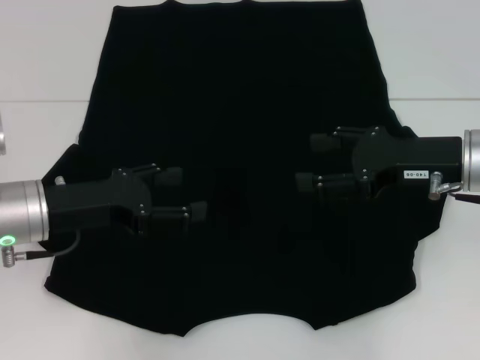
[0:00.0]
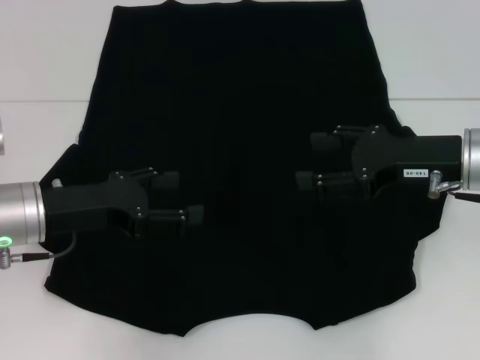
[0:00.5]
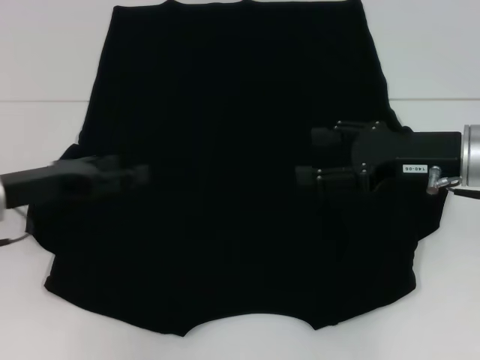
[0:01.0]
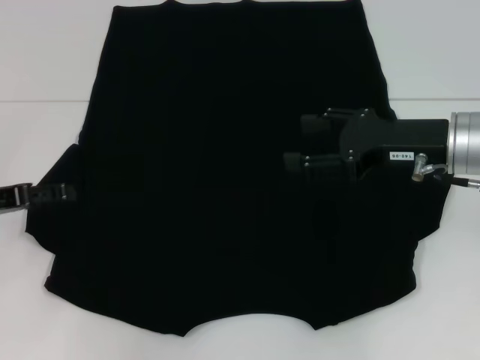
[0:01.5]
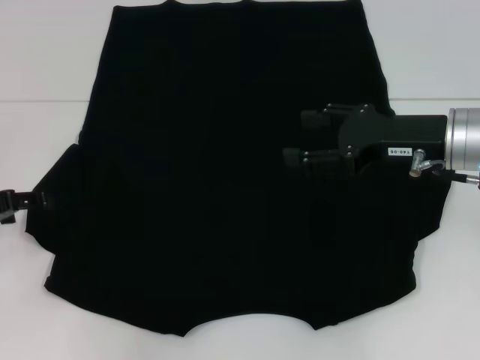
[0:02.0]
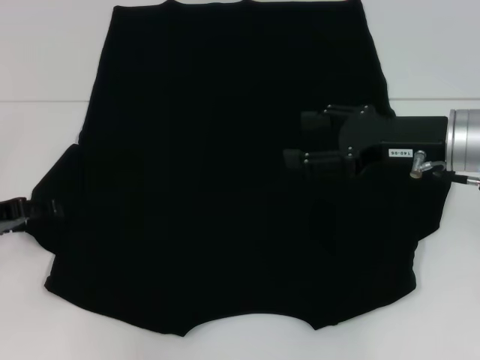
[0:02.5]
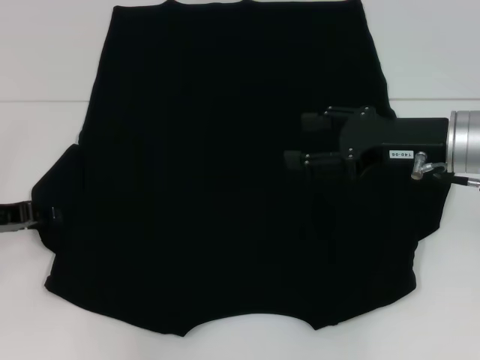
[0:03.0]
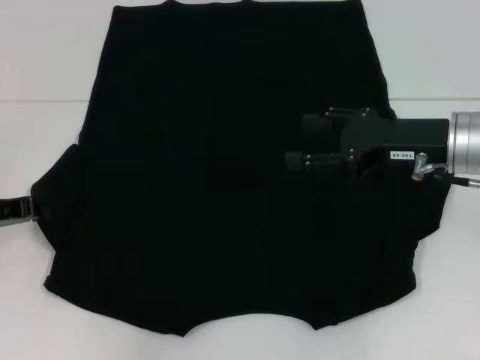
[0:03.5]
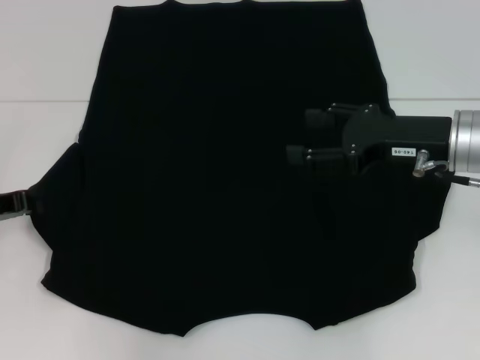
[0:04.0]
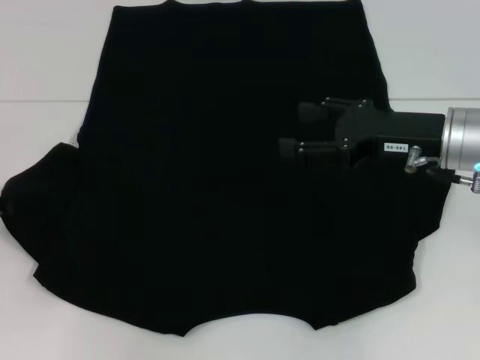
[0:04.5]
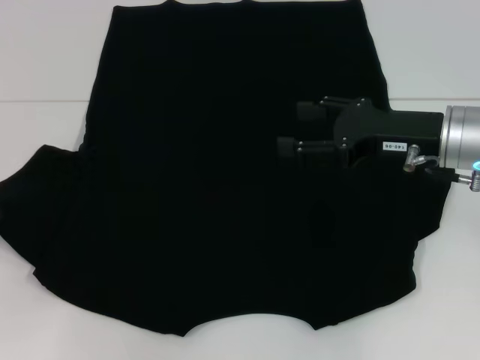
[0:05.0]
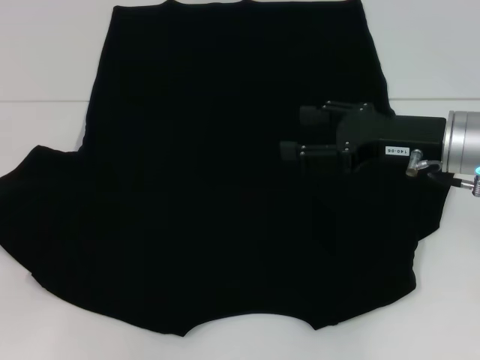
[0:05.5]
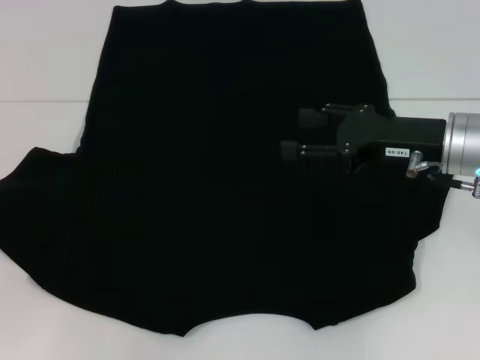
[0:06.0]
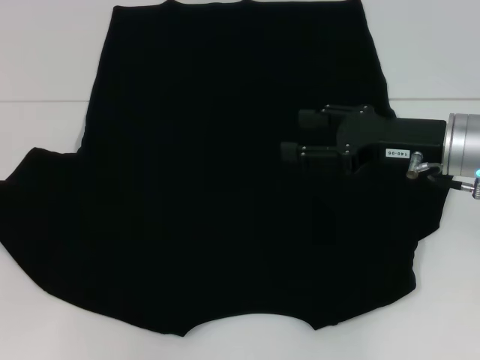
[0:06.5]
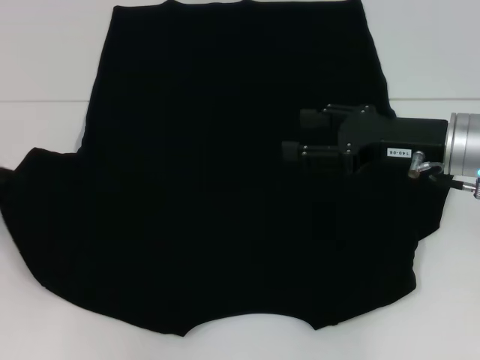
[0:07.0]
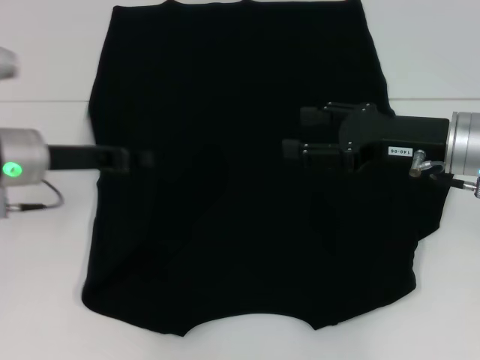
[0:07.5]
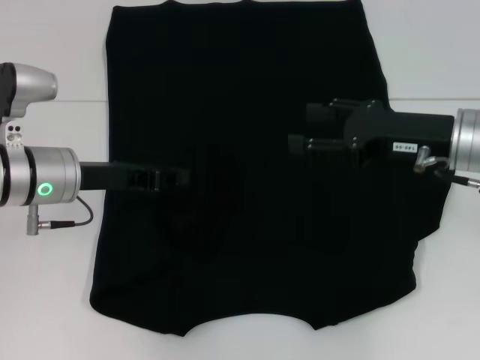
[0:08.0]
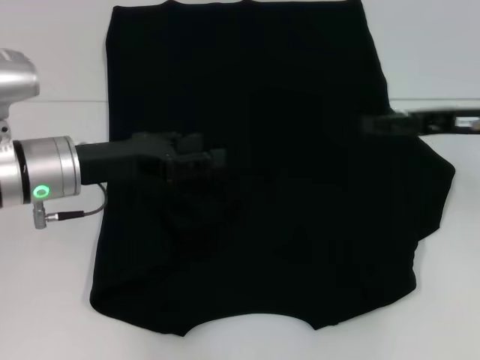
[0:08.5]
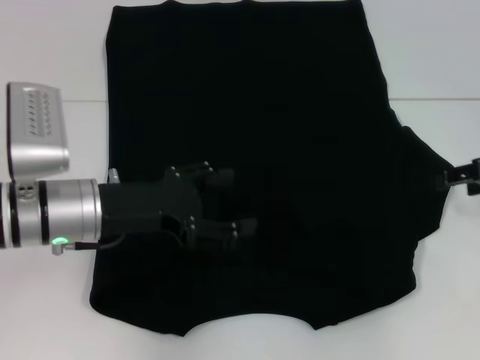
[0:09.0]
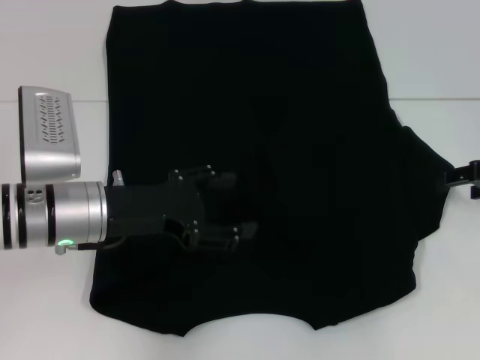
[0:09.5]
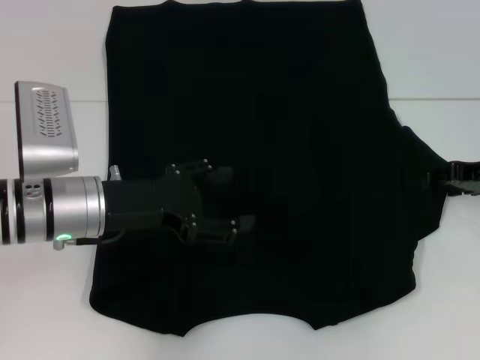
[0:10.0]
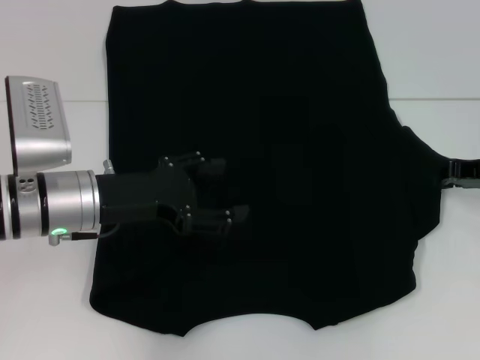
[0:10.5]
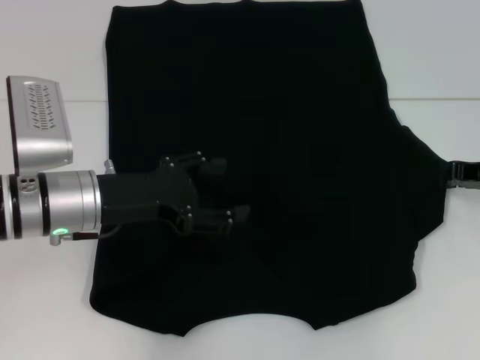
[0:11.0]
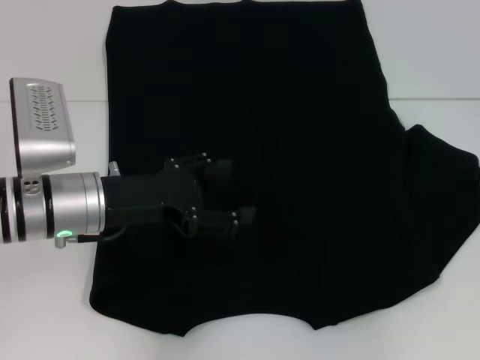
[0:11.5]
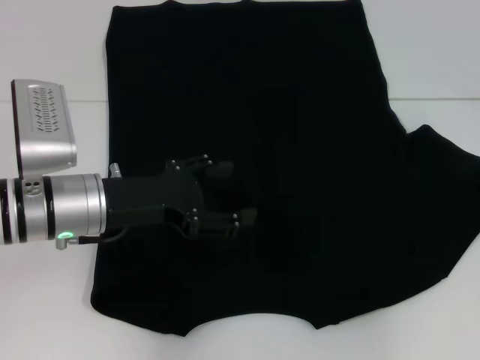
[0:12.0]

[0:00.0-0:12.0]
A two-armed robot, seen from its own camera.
Step, 0:00.0 to 0:08.0: Fold the bottom left sleeve with your left hand.
0:00.0 to 0:02.0: The left gripper is displaced to the left by some 10 cm.
0:02.0 to 0:04.0: The left gripper closes up.
0:04.0 to 0:06.0: The left gripper moves approximately 5 cm.
0:06.0 to 0:08.0: The left gripper travels to the right by approximately 15 cm.
0:08.0 to 0:10.0: The left gripper opens up; the right gripper travels to the right by approximately 10 cm.
0:10.0 to 0:12.0: The right gripper moves roughly 5 cm, and closes up.

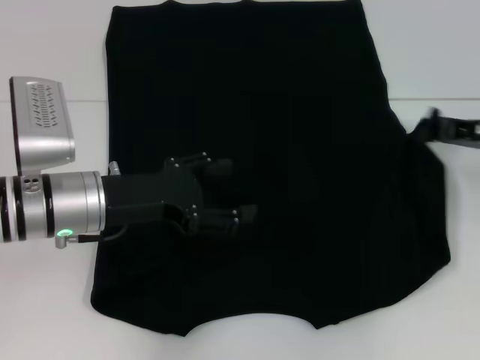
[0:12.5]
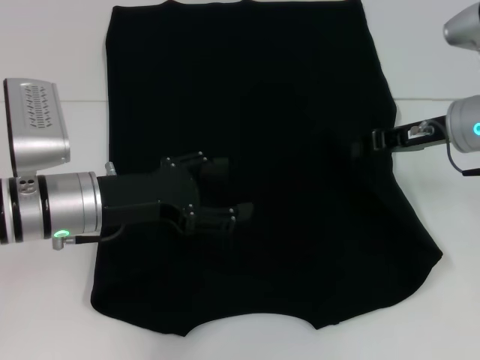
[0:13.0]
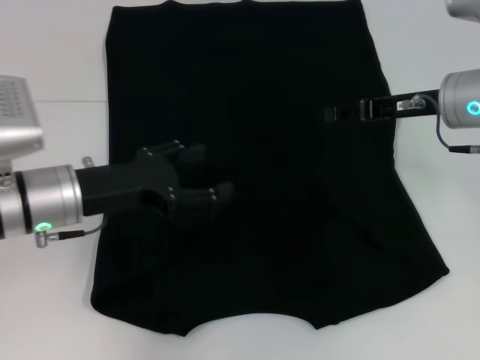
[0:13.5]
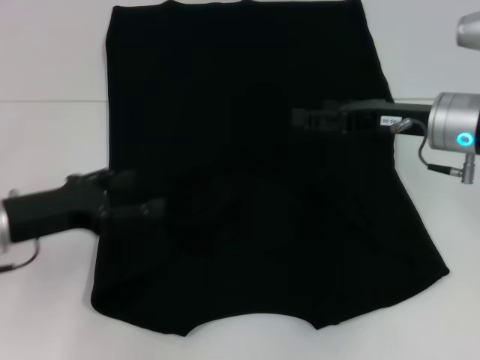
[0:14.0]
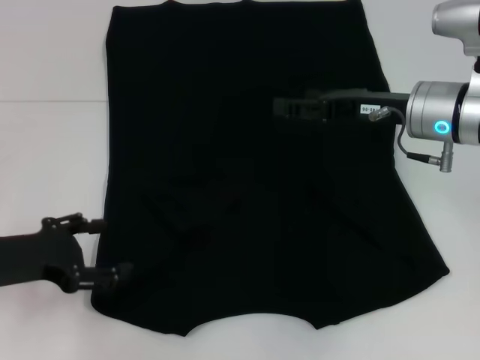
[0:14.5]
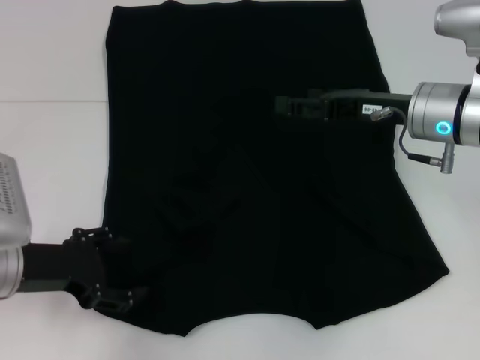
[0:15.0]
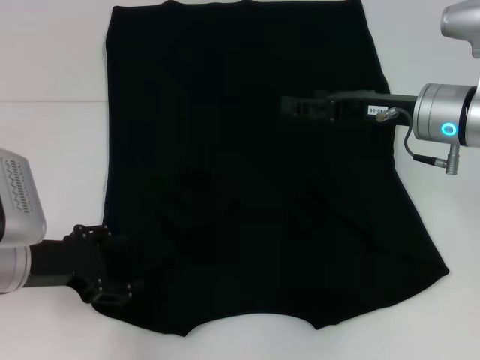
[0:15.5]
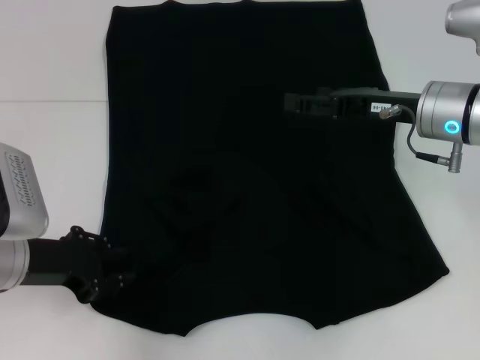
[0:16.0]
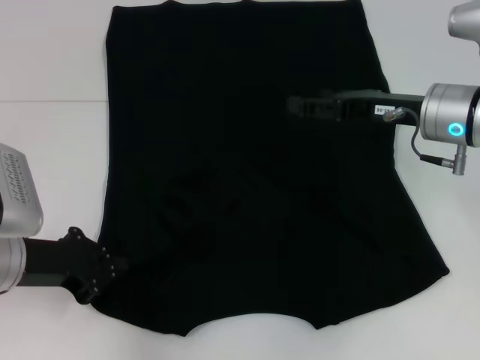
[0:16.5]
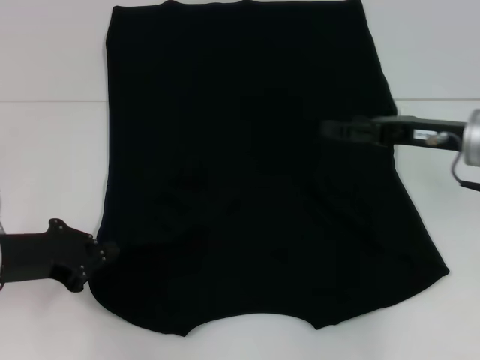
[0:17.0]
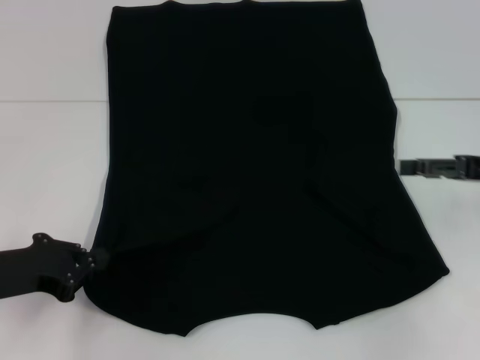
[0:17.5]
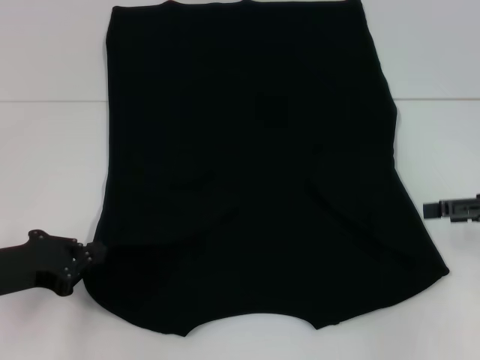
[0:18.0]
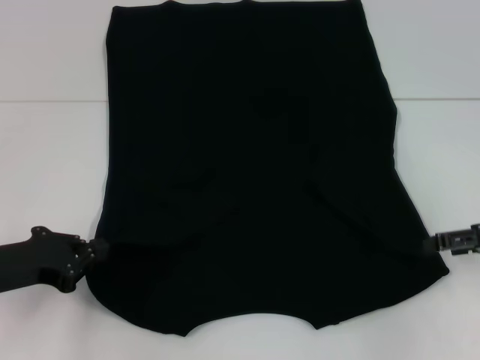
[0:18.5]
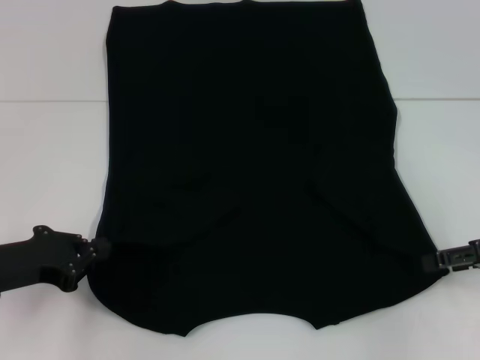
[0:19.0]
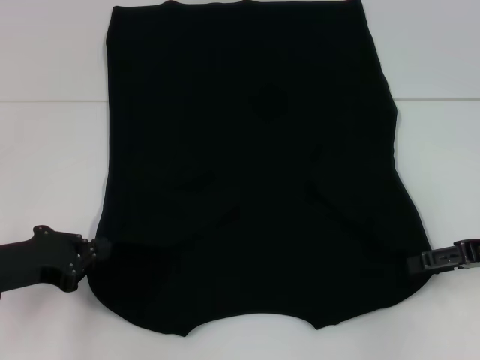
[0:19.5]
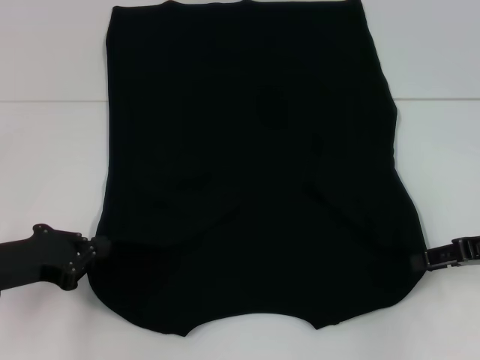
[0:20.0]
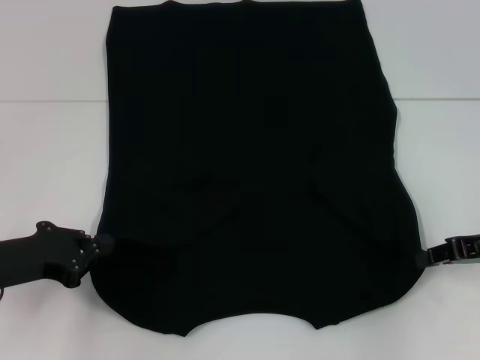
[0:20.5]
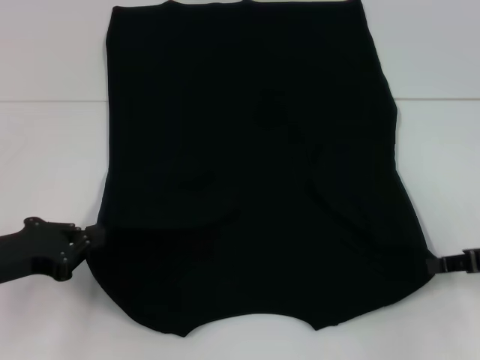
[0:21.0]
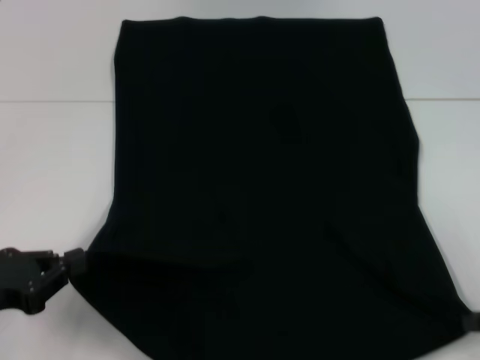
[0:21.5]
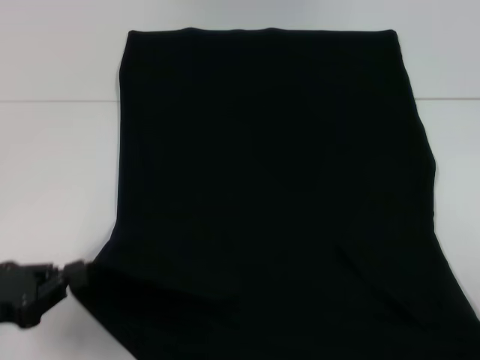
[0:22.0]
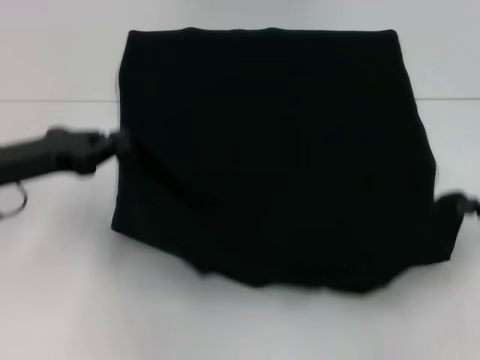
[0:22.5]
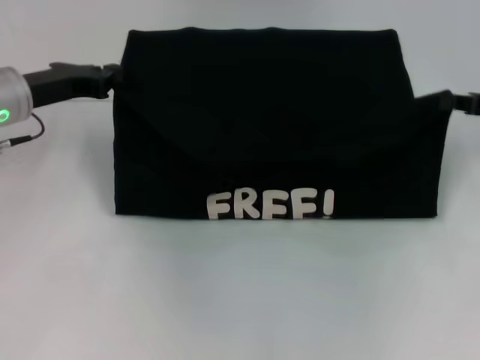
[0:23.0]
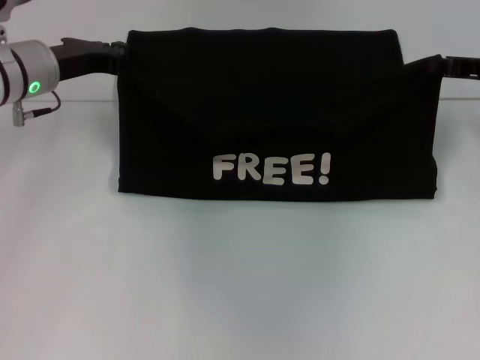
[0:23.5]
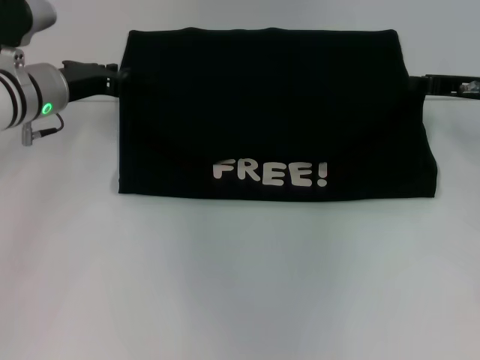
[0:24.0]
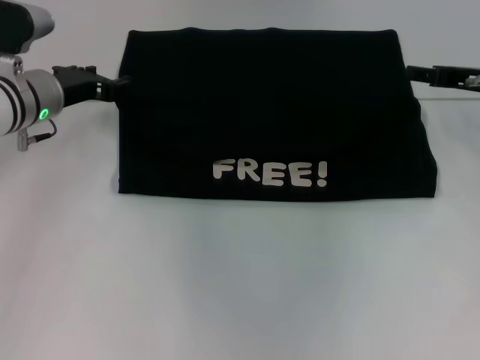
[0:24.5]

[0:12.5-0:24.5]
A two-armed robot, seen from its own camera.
Step, 0:14.0 to 0:19.5: Grab the bottom left corner with your left hand.
Step, 0:14.0 to 0:19.5: Grab the bottom right corner with your right hand.
0:12.5 to 0:14.5: The right gripper heads to the left, covering roughly 10 cm, and opens its fingers; the left gripper moves to the left and backward, some 10 cm.
0:14.5 to 0:16.5: The left gripper closes up.
0:16.5 to 0:18.5: The right gripper goes about 15 cm to the right and backward.
0:18.5 to 0:20.5: The right gripper closes up.
0:20.5 to 0:22.5: The right gripper shifts approximately 5 cm to the right, and travels backward and back again, about 10 cm each way. The left gripper travels forward and upward by roughly 10 cm.
0:22.5 to 0:24.5: The right gripper moves forward and to the left, about 15 cm, and opens its fingers; the left gripper travels forward by approximately 10 cm, and opens.

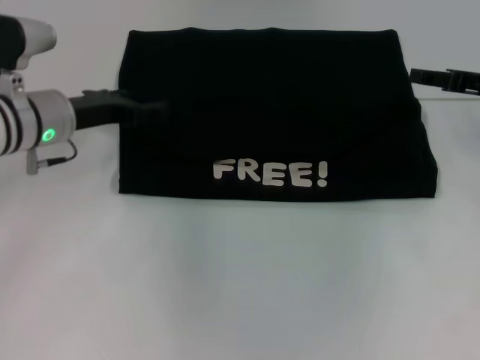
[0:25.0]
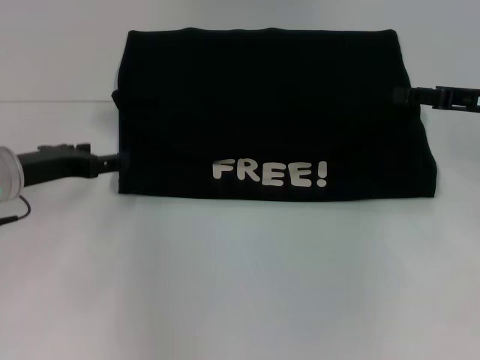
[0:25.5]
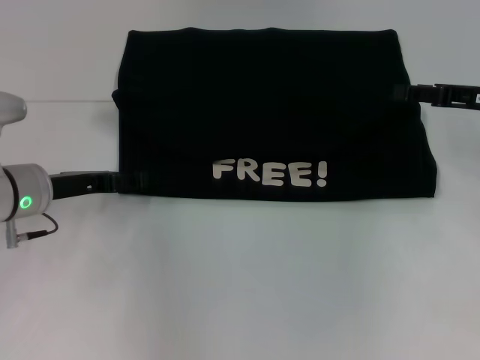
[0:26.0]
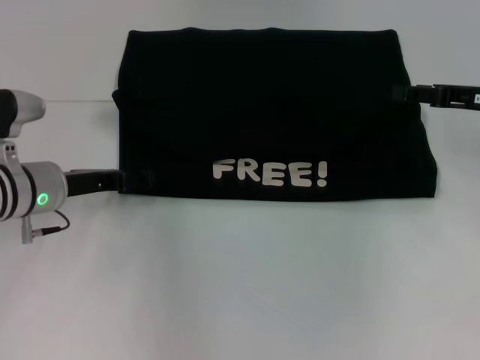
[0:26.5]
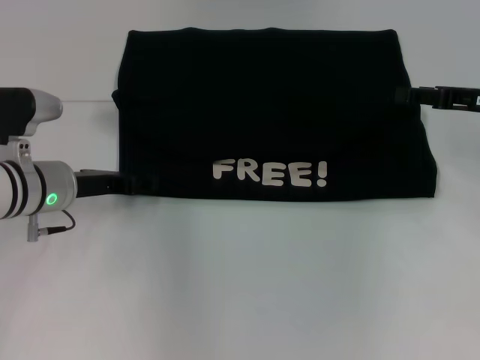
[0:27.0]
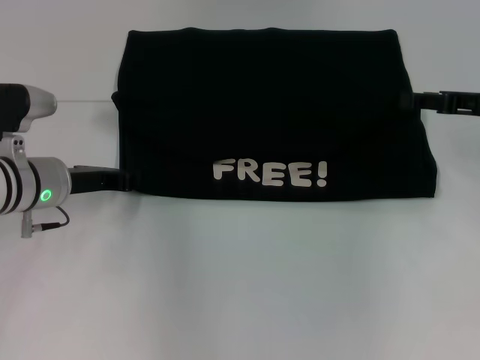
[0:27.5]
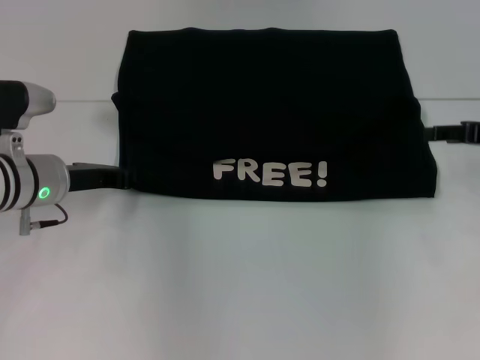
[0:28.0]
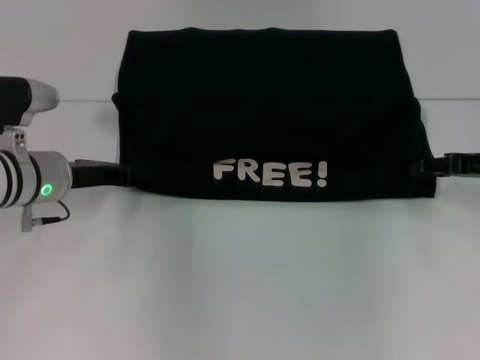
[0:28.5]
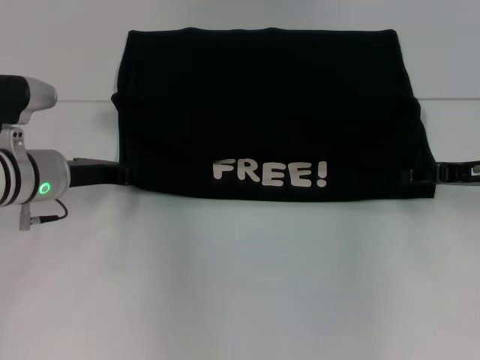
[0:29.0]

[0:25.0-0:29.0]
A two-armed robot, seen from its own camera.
0:25.0 to 0:27.0: The left gripper travels downward by about 5 cm.
0:27.0 to 0:29.0: The right gripper changes place by some 5 cm. Meanwhile the left gripper closes up.
